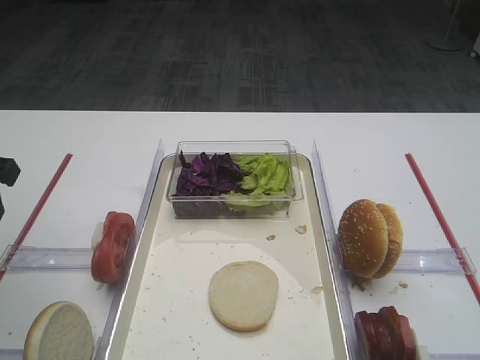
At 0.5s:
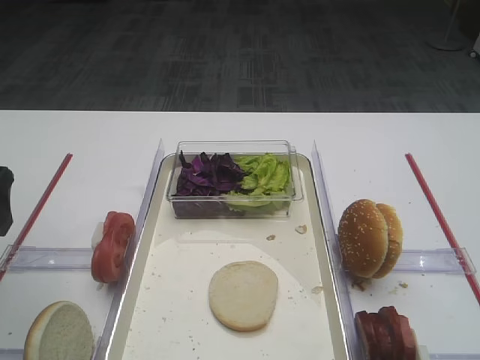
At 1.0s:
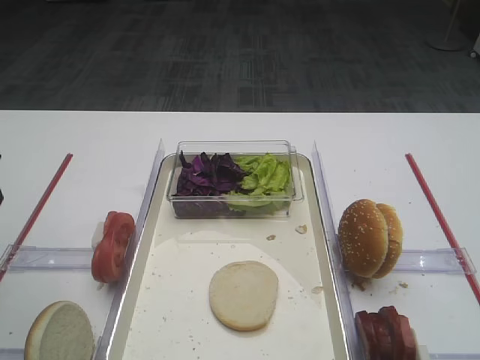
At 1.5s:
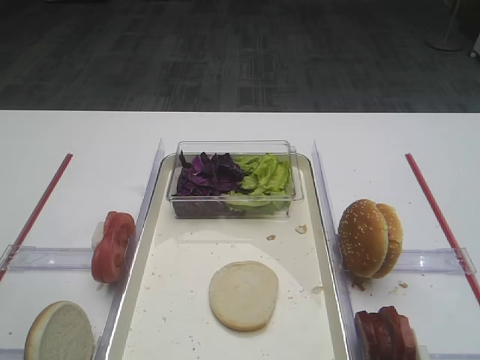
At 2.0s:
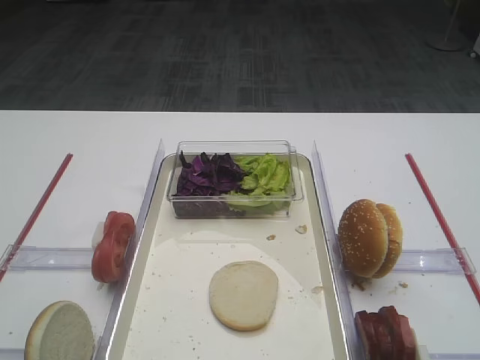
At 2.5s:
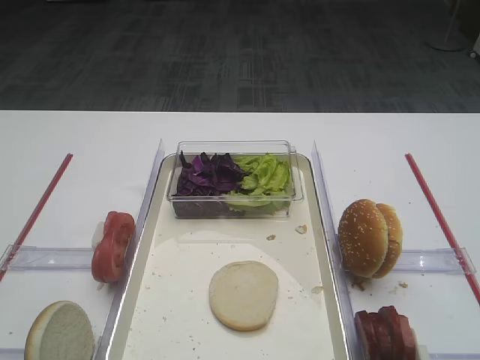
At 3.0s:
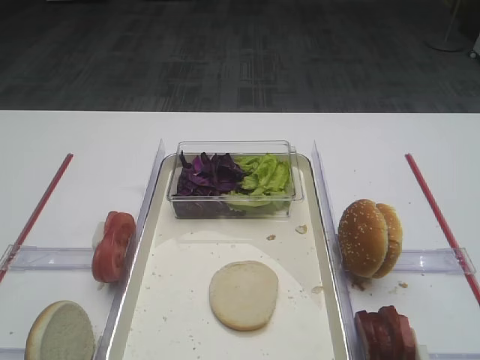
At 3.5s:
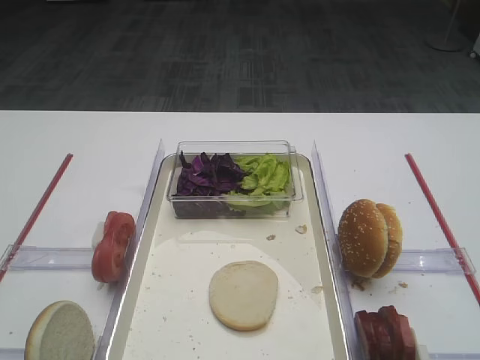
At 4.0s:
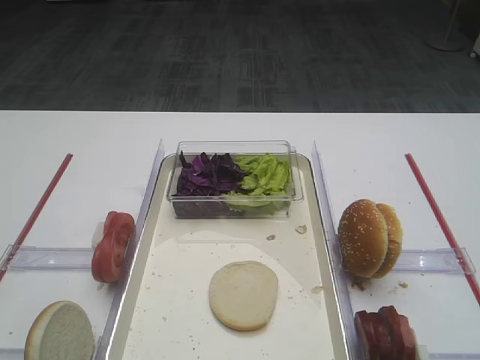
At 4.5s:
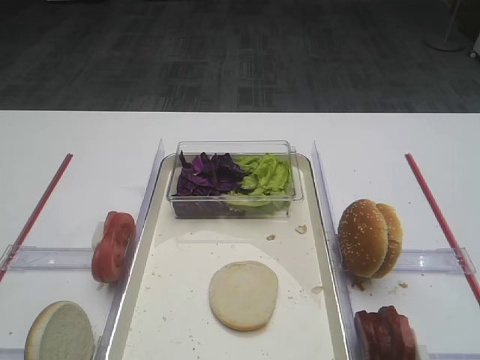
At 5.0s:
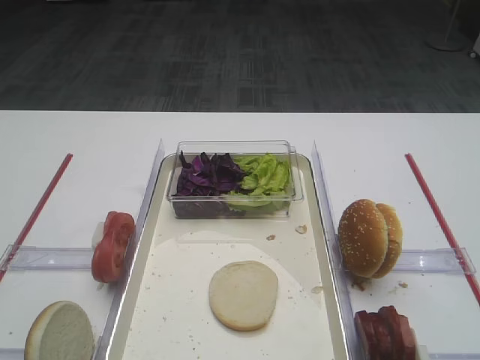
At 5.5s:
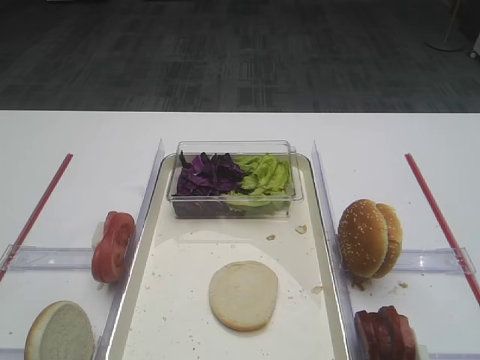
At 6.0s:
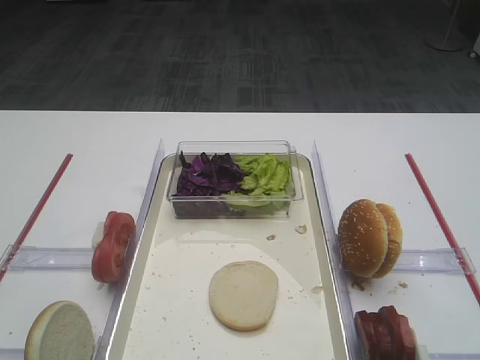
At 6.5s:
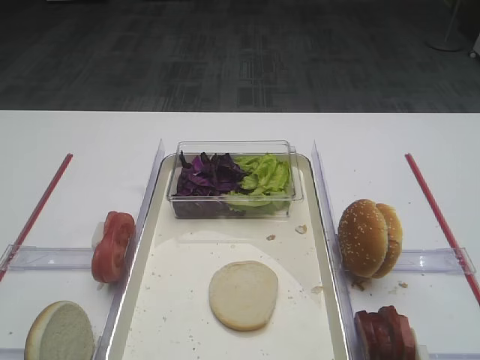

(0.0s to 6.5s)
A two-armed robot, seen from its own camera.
0.0s - 2.0s: The left gripper heads backward, covering approximately 20 cm.
4.5s - 6.5s: Both grippers stay put.
